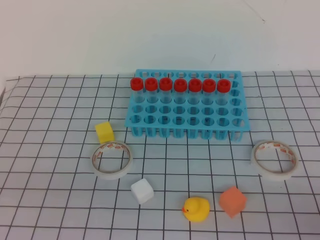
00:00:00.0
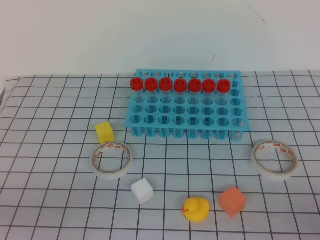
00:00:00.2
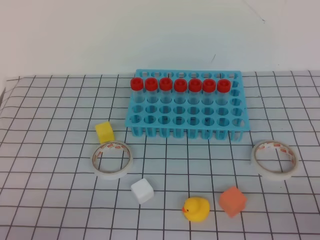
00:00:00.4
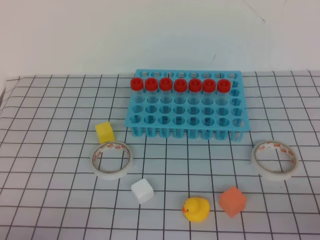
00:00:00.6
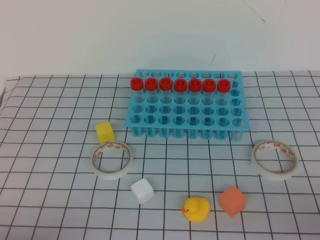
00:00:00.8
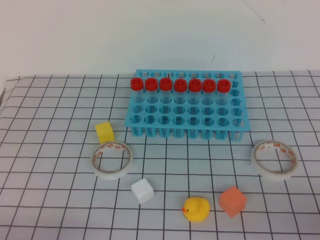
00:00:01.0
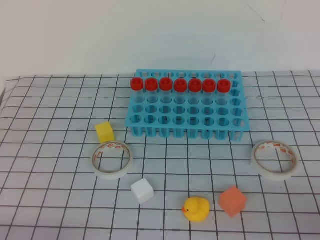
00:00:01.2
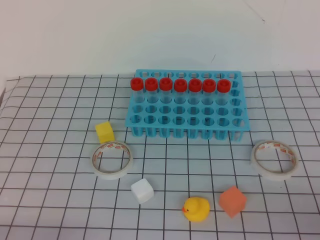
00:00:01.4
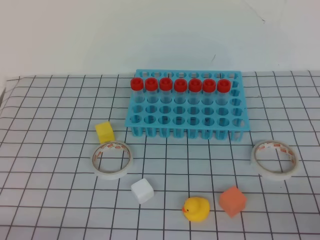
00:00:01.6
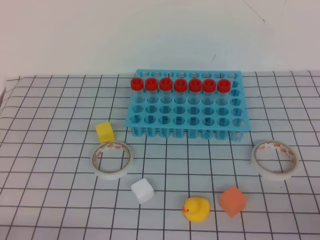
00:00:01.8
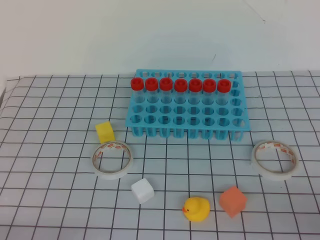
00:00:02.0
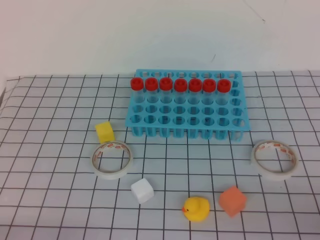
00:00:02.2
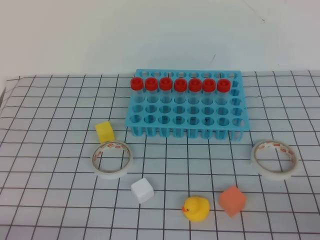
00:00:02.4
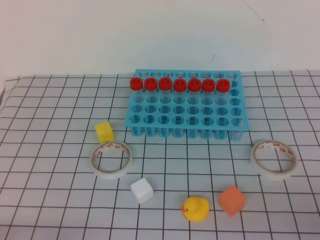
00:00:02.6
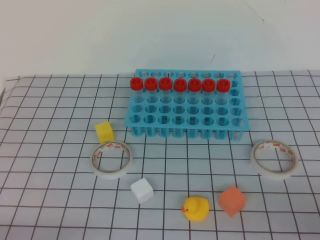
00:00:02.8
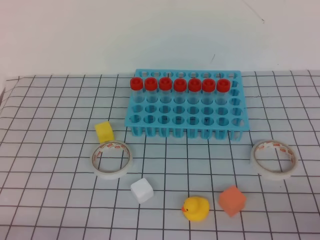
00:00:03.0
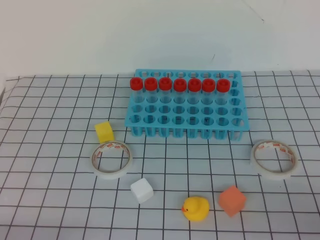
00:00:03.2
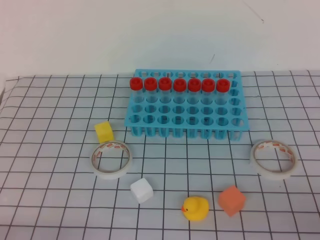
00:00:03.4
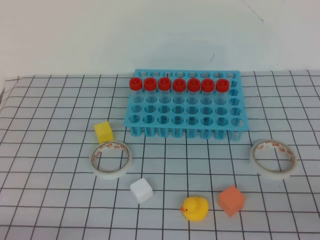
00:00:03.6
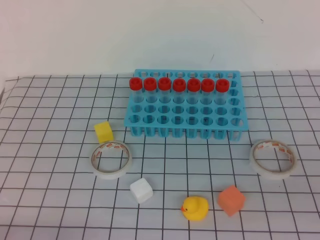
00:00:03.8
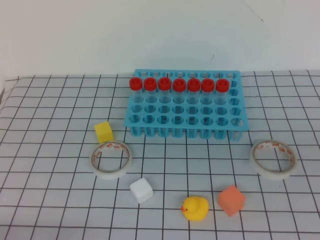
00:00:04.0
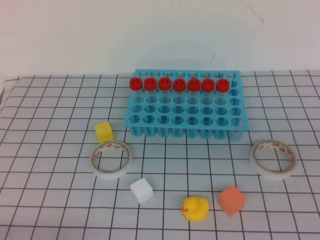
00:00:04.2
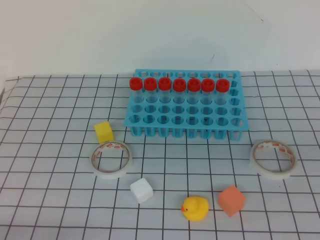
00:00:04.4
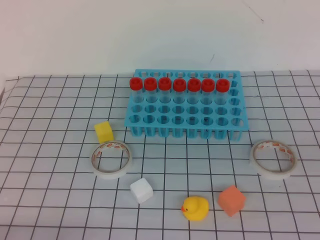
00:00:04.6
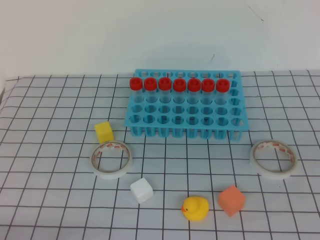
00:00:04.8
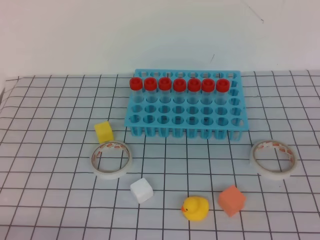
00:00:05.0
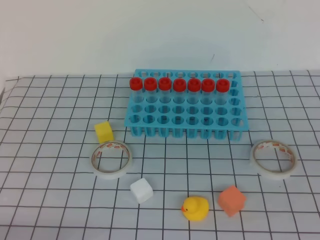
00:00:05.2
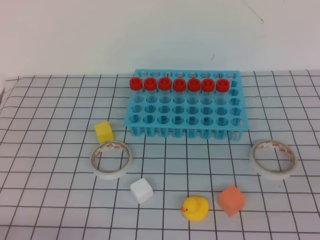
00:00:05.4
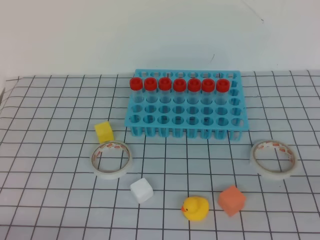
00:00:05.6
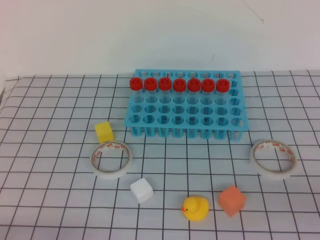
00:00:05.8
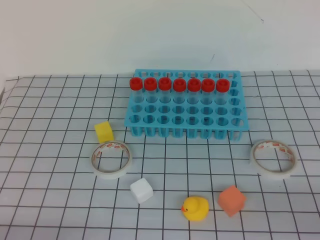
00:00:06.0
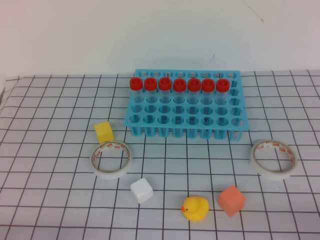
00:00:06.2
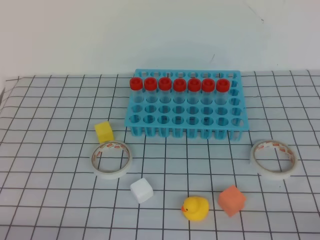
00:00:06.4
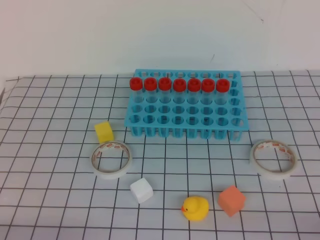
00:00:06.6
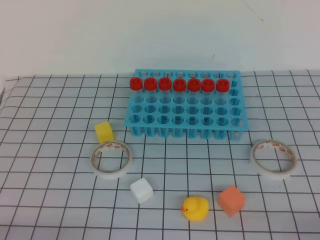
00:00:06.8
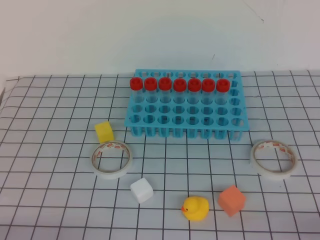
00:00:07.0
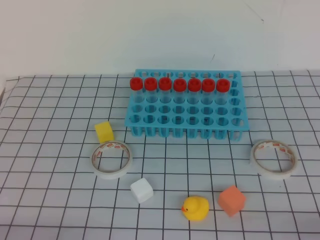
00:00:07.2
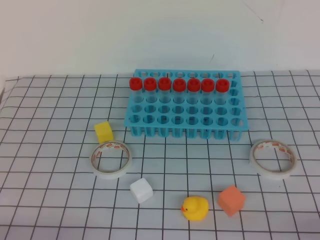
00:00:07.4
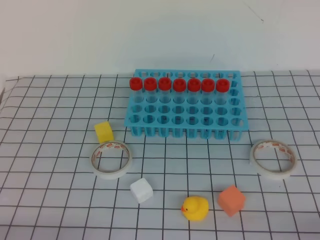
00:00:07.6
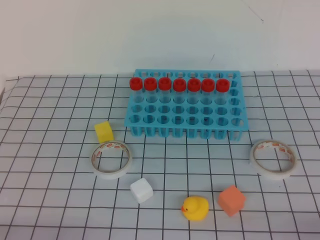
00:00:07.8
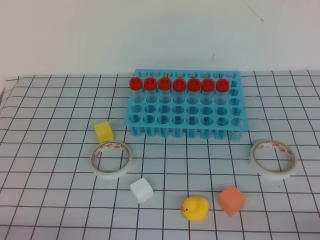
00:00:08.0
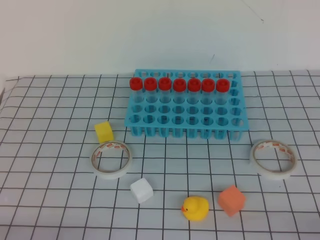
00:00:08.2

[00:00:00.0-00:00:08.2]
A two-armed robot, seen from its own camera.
00:00:01.6 to 00:00:03.2: Both grippers stay about where they are.
00:00:03.2 to 00:00:05.0: The right gripper ends up roughly 5 cm from where it was.
00:00:06.6 to 00:00:08.2: Both grippers stay about where they are.
